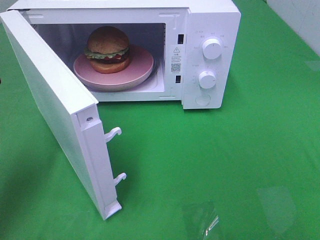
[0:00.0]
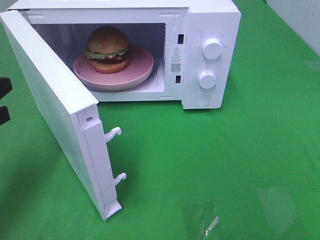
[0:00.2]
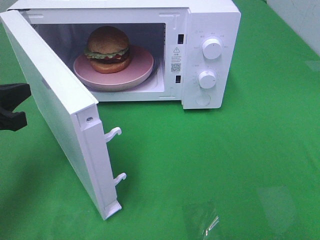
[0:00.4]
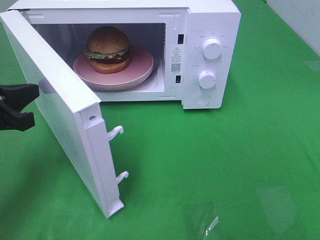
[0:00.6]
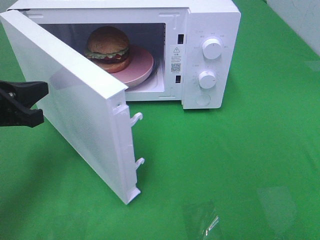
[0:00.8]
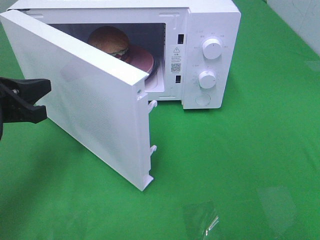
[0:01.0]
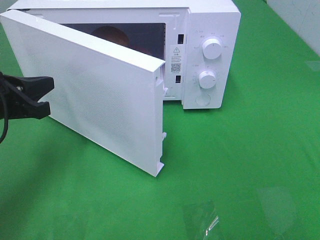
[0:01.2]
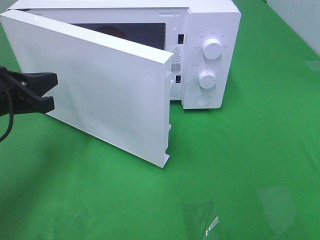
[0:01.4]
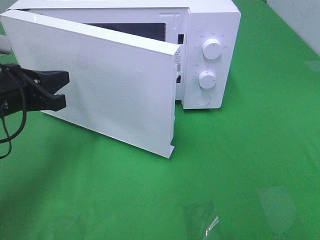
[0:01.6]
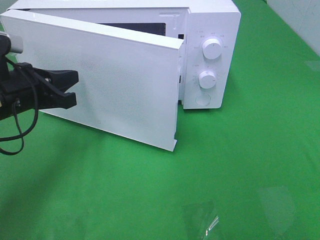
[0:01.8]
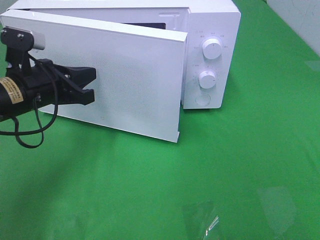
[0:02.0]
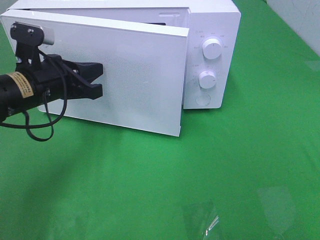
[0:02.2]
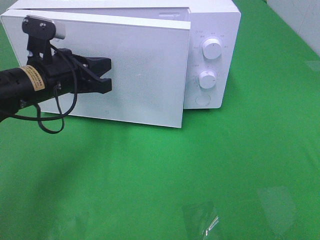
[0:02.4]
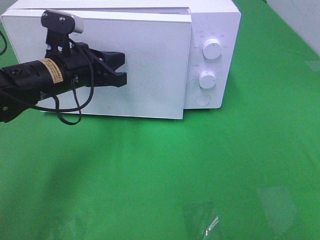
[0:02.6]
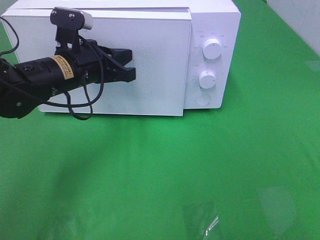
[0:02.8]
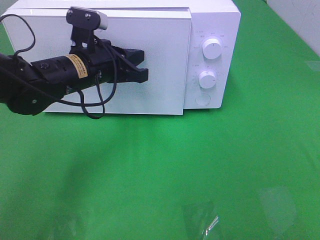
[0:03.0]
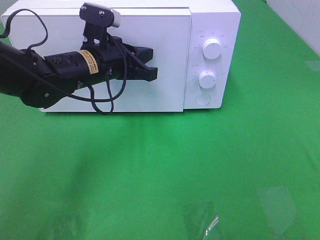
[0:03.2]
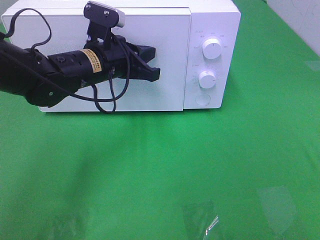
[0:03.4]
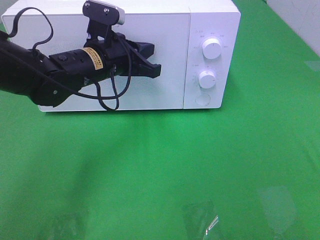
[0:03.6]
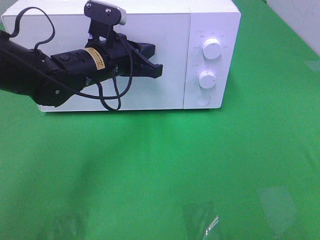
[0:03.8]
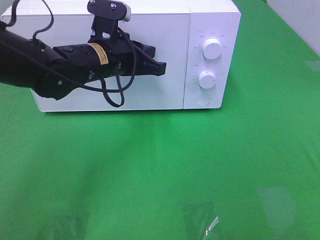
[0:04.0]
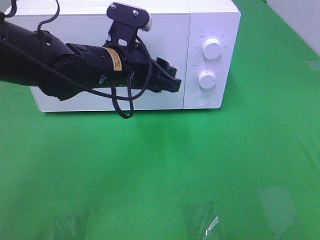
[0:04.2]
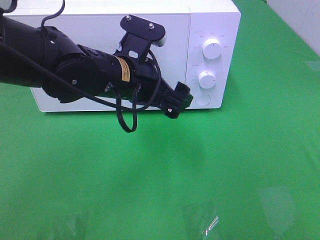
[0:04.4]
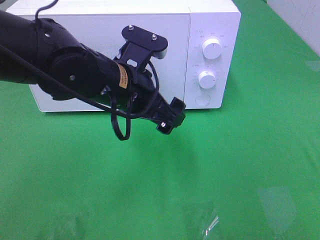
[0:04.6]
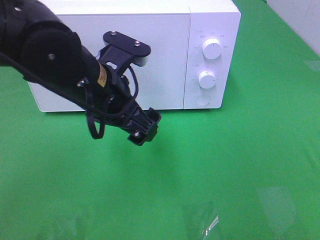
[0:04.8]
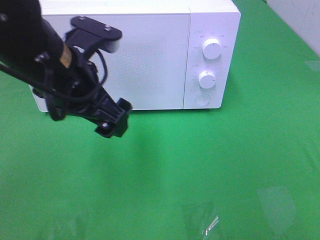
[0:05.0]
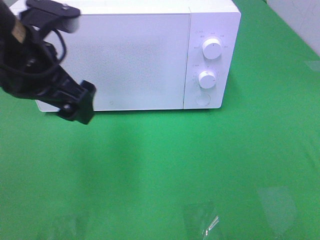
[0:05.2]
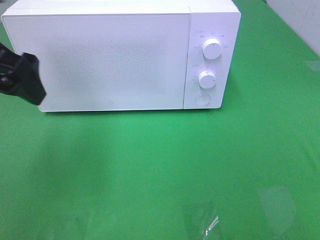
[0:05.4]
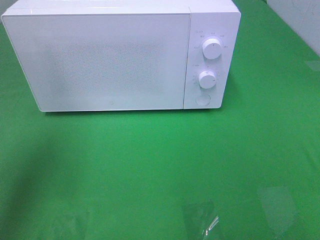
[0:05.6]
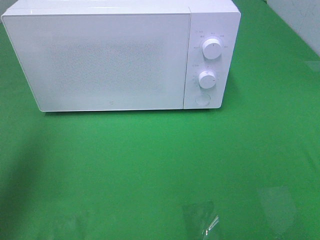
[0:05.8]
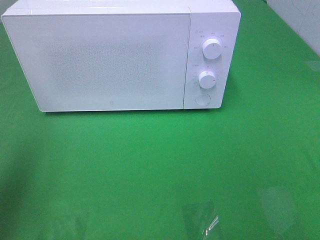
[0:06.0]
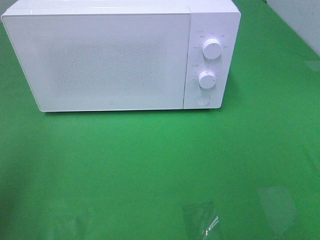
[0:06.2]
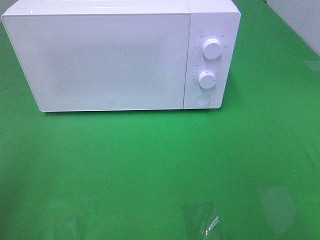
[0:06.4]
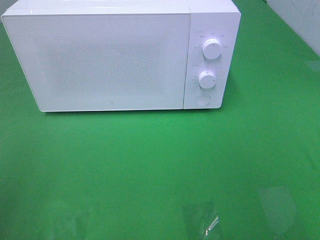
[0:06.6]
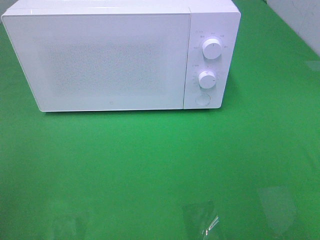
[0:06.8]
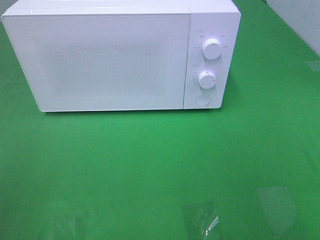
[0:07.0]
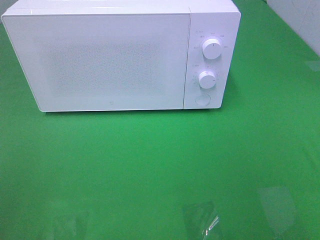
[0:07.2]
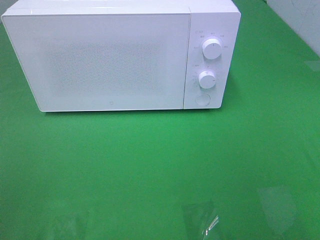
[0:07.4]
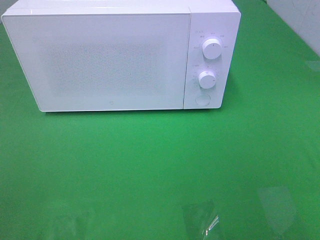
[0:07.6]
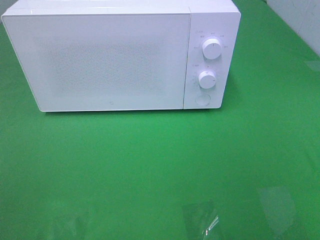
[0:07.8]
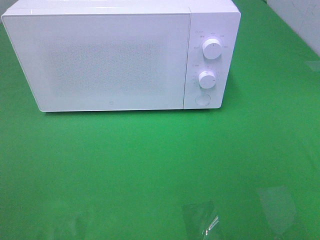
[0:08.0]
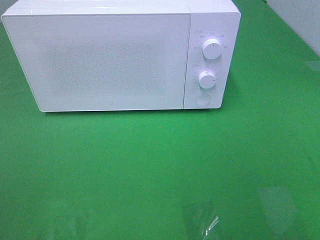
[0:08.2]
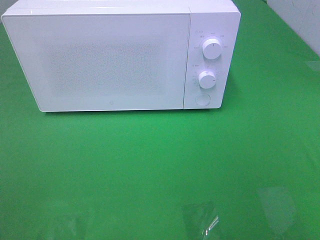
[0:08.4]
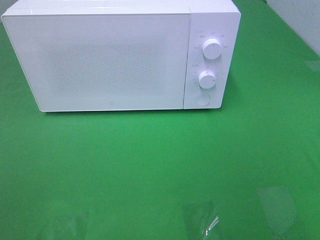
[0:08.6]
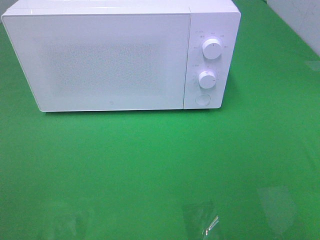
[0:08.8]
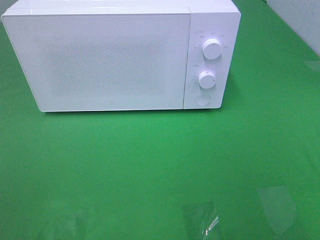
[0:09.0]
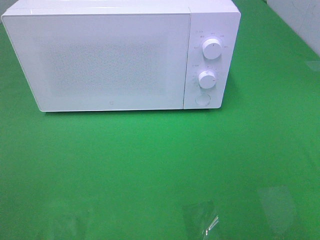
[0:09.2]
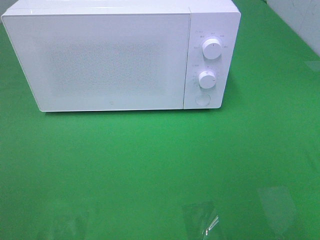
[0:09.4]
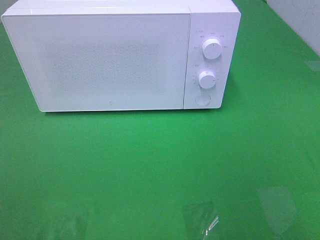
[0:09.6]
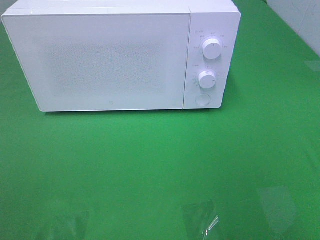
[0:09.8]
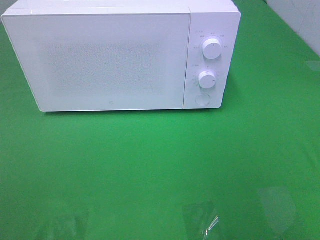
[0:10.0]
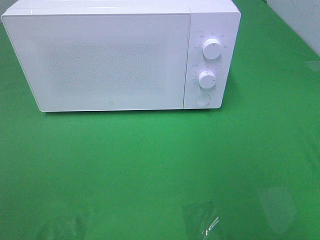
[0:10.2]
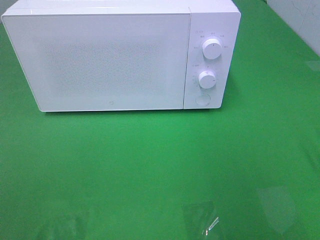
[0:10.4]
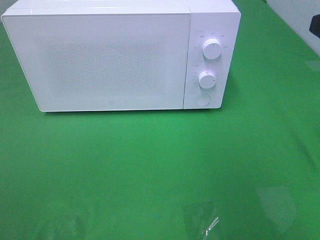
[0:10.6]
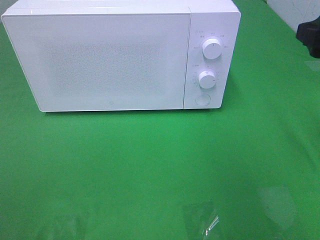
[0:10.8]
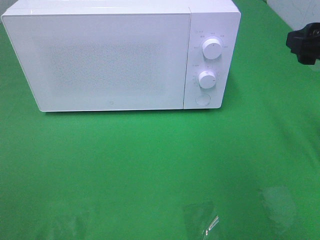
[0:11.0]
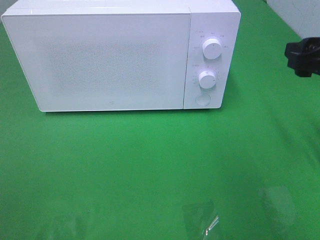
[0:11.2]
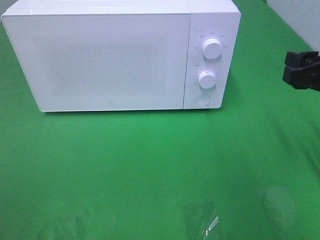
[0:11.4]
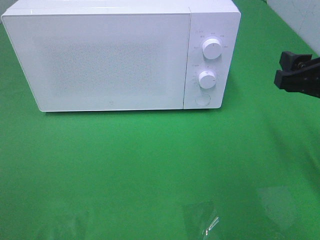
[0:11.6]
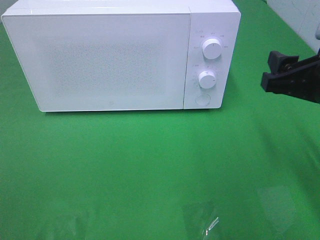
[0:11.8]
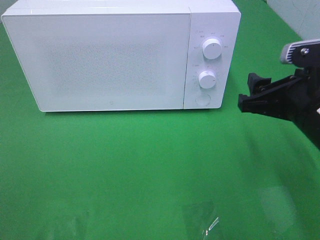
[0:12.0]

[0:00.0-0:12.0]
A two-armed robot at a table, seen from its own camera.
Task of the whole recording: Heat the burger.
Step, 0:00.0 to 0:04.0: Left hand: close the microwave door.
0:00.0 to 0:01.6: The left gripper goes about 10 cm forward and to the right.
0:01.6 to 0:03.0: The left gripper goes approximately 15 cm to the right and forward.
0:03.0 to 0:04.4: The left gripper travels to the right and backward by about 10 cm, and opens up.
0:04.4 to 0:06.0: The left gripper moves to the left, backward and upward, roughly 30 cm.
0:06.0 to 0:07.6: The left gripper heads backward, covering approximately 15 cm.
0:07.6 to 0:09.0: The two grippers keep their place.
0:10.4 to 0:12.0: The right gripper shifts roughly 15 cm downward and to the left.

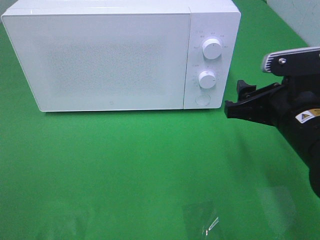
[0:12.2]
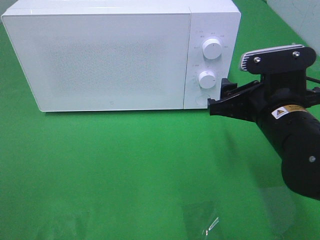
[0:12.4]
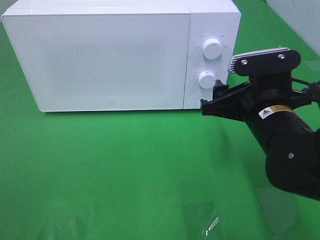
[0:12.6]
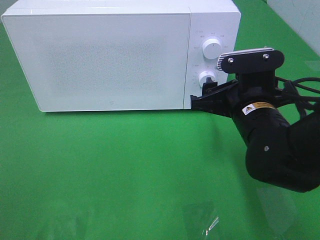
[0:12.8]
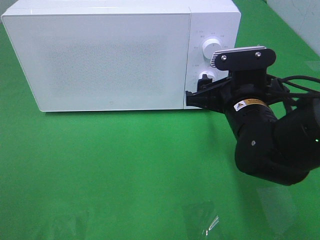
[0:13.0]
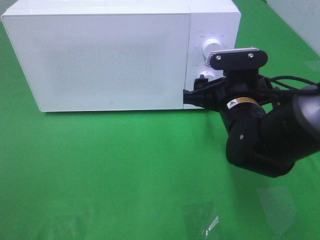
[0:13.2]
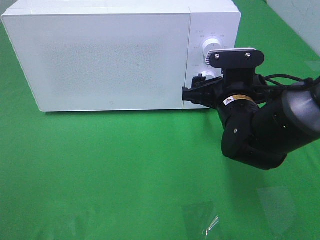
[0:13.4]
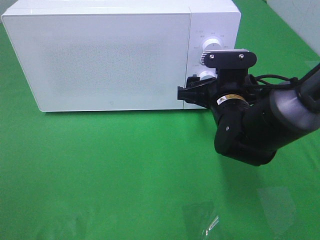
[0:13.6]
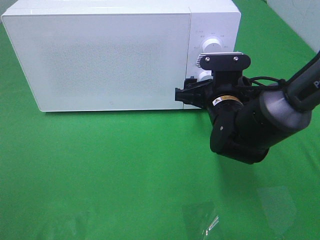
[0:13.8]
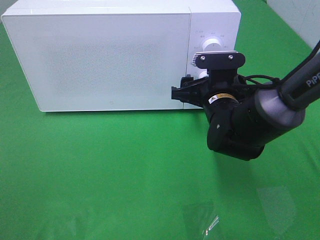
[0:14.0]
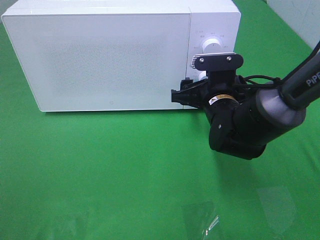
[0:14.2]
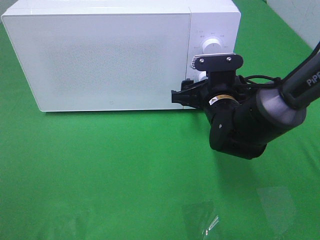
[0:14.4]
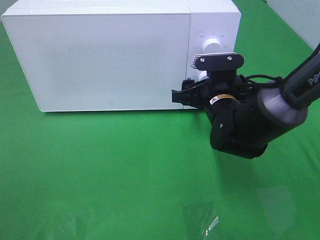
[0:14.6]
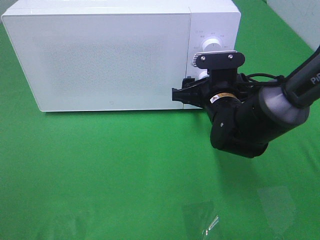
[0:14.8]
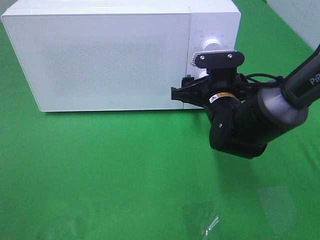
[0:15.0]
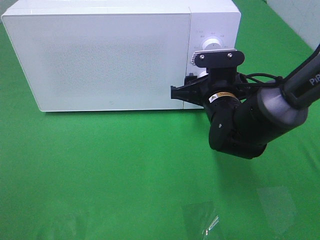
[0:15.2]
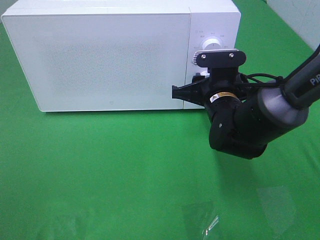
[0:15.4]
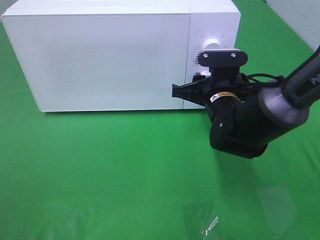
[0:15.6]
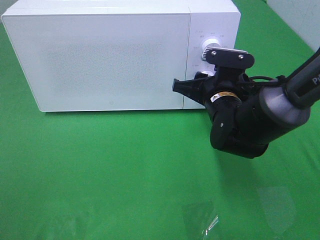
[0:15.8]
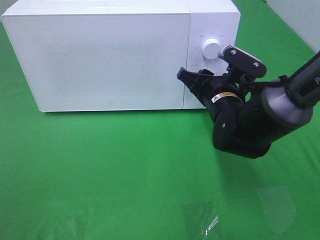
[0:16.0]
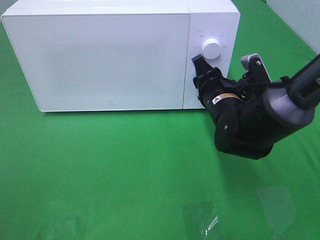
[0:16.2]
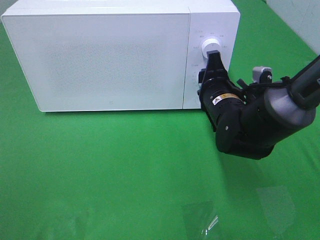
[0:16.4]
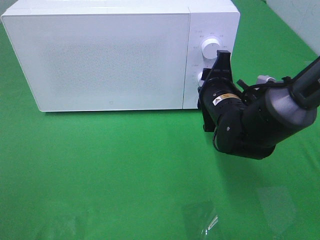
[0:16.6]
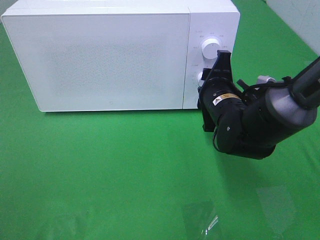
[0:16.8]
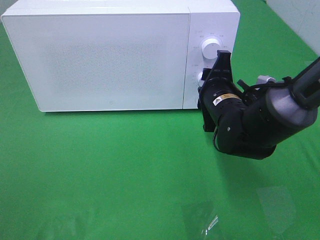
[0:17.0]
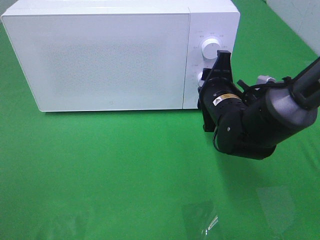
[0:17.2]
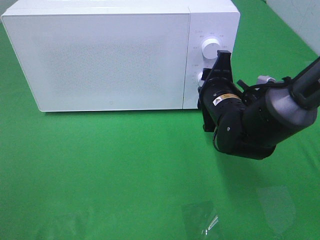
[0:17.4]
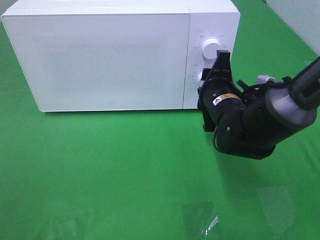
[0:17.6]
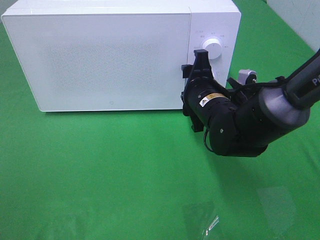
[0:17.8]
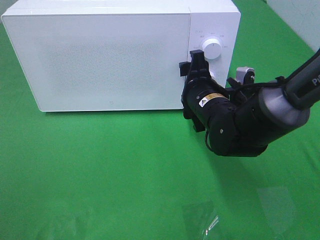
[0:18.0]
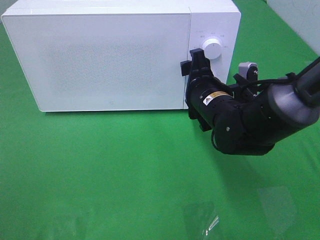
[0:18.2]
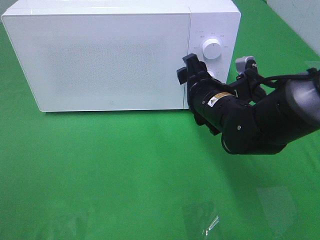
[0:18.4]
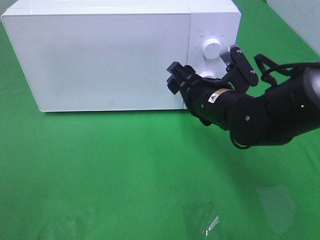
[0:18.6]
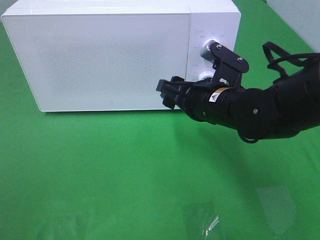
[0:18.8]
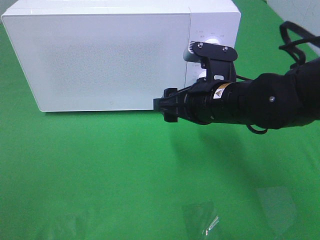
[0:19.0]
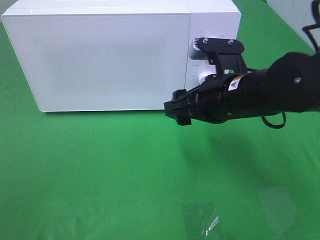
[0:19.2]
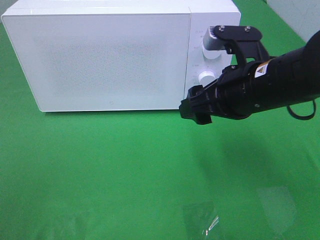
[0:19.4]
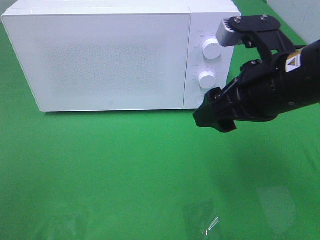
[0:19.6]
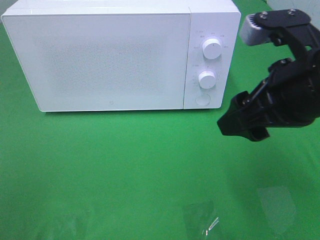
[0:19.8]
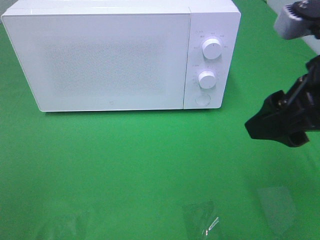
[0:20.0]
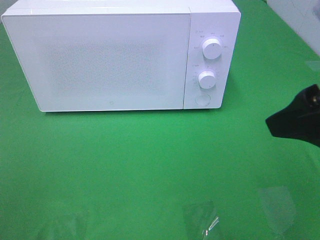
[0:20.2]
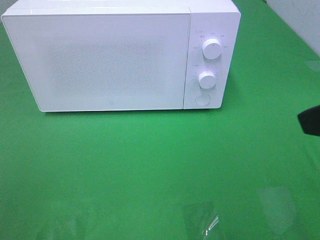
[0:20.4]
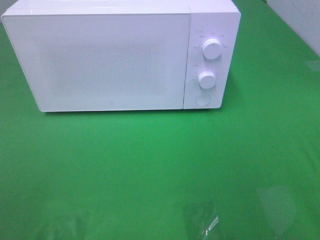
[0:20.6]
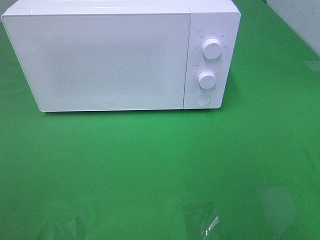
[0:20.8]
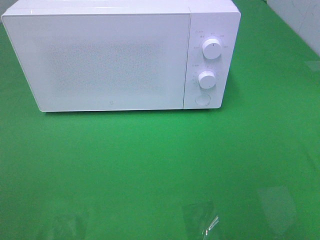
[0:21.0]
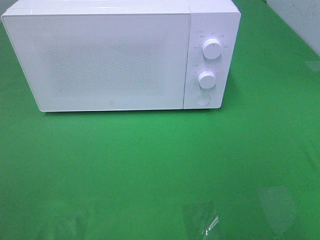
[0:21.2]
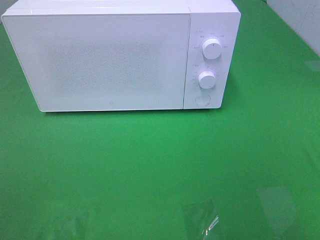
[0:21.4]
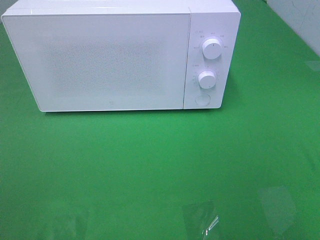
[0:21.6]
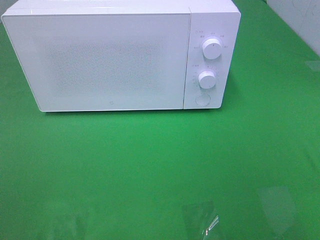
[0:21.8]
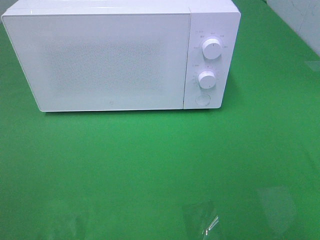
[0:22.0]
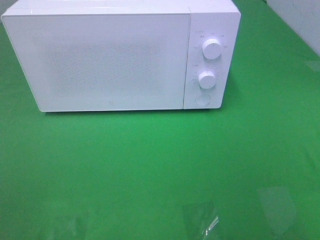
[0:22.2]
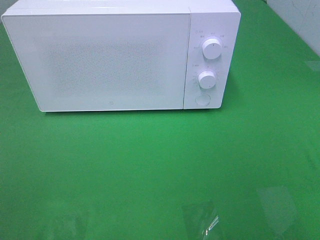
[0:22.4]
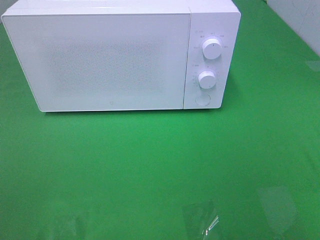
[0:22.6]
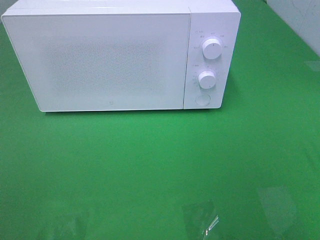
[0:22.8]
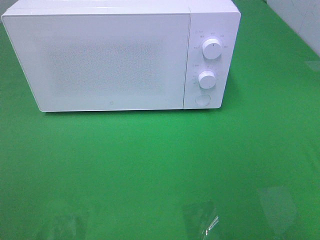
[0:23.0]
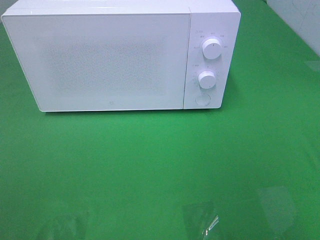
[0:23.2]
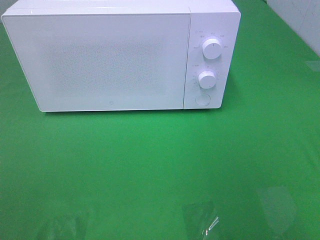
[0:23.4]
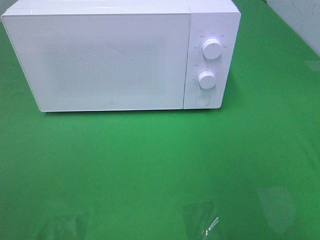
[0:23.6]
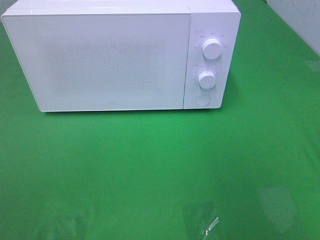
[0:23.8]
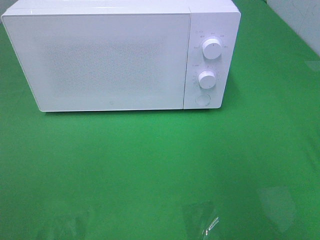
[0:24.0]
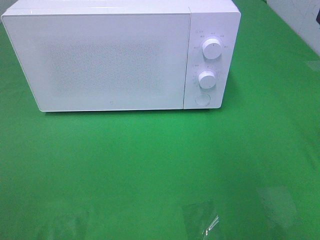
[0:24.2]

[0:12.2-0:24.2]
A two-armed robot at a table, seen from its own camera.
Task of the whole recording: Heat the burger.
Step, 0:12.2 to 0:17.6: Right hand: twist timer button.
0:12.2 to 0:13.8: The right gripper is displaced forward, downward and to the left by some 15 cm.
0:13.8 to 0:15.2: Both grippers stay about where they are.
0:16.6 to 0:18.2: There are only small adjustments of the grippers.
0:18.2 to 0:19.8: The right gripper goes about 20 cm upward, backward and to the right.
0:19.8 to 0:21.2: The right gripper is displaced backward and to the right by roughly 20 cm.
